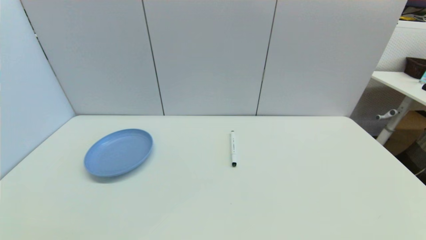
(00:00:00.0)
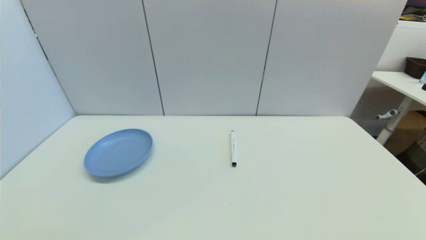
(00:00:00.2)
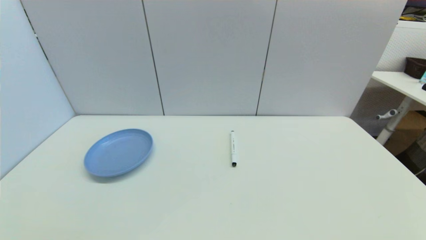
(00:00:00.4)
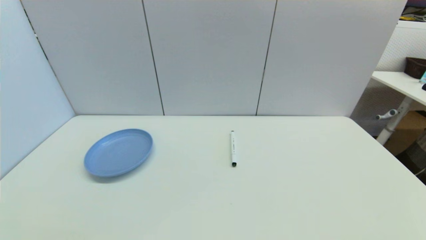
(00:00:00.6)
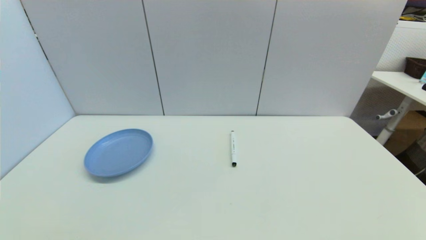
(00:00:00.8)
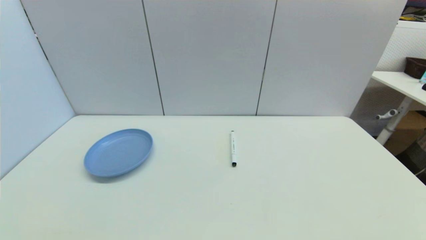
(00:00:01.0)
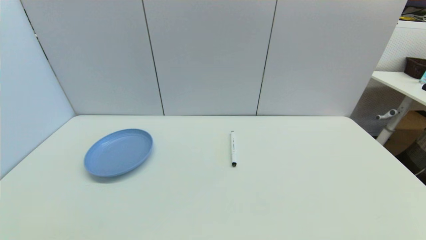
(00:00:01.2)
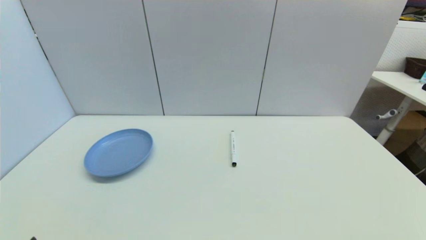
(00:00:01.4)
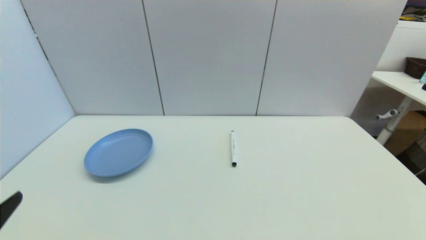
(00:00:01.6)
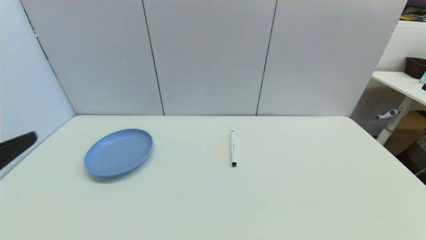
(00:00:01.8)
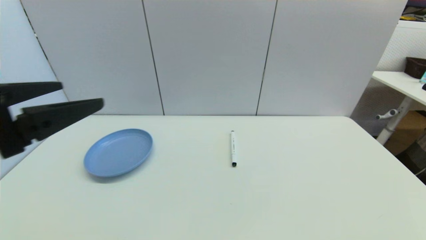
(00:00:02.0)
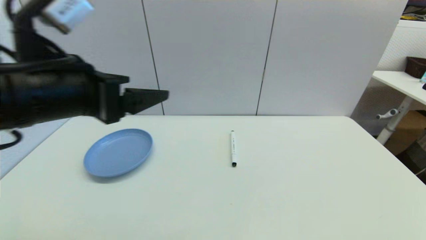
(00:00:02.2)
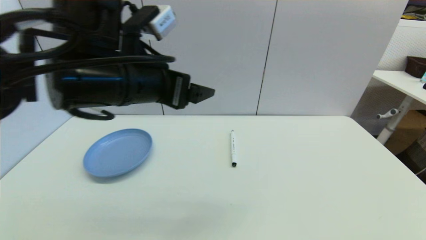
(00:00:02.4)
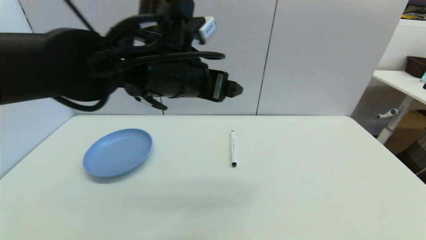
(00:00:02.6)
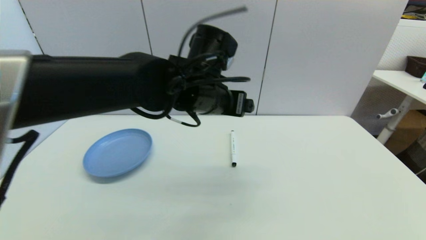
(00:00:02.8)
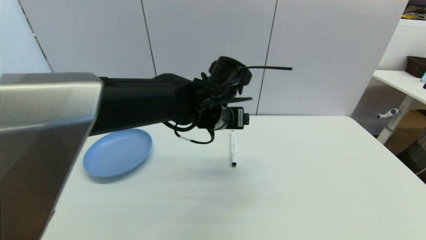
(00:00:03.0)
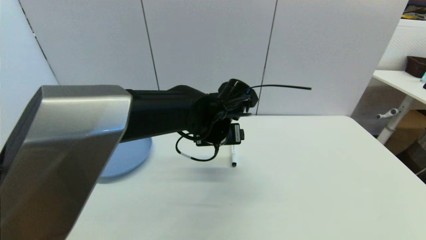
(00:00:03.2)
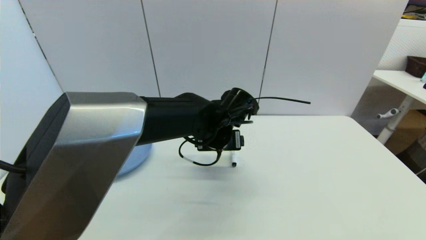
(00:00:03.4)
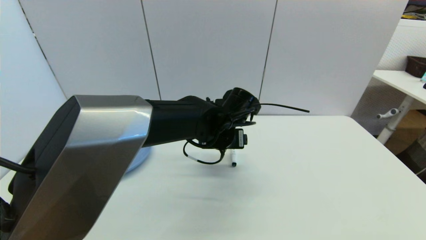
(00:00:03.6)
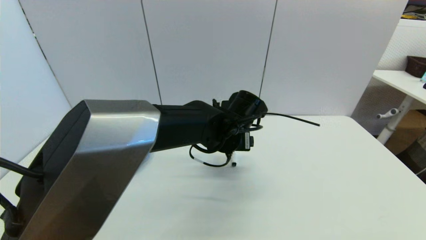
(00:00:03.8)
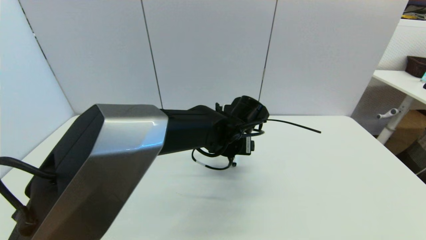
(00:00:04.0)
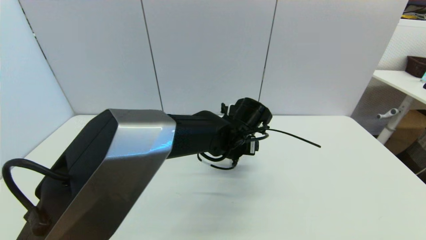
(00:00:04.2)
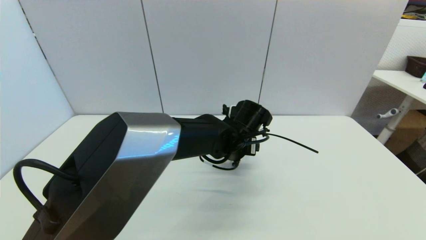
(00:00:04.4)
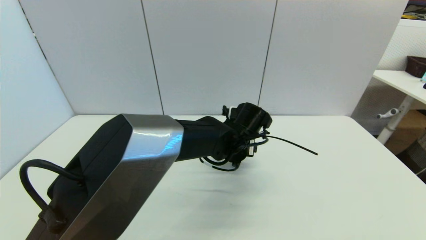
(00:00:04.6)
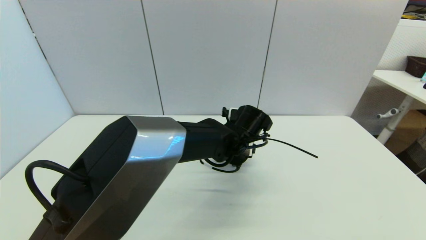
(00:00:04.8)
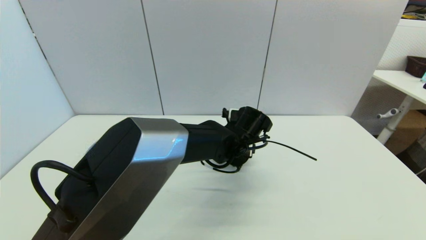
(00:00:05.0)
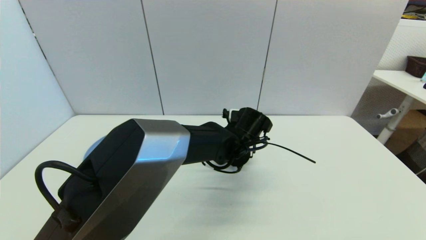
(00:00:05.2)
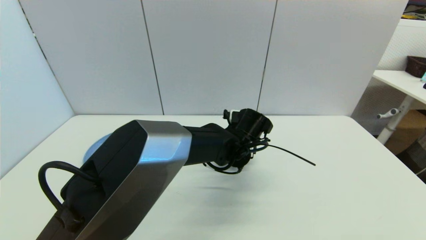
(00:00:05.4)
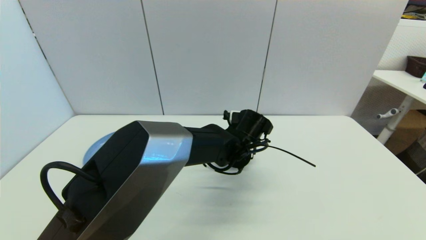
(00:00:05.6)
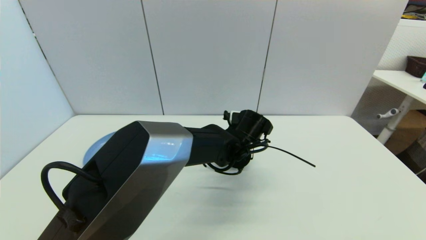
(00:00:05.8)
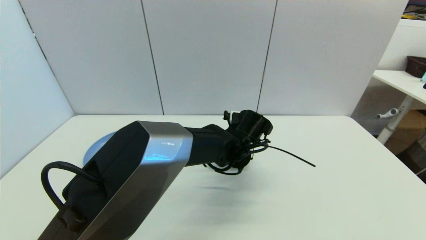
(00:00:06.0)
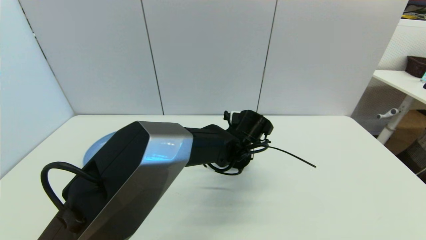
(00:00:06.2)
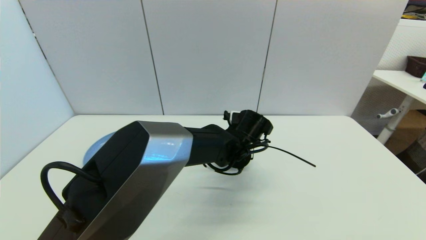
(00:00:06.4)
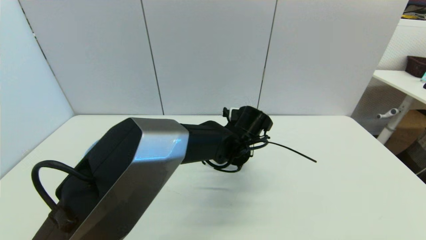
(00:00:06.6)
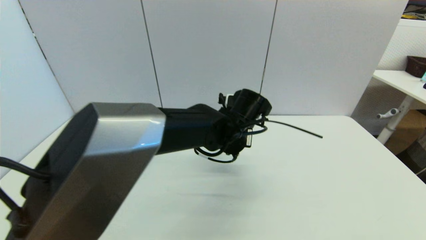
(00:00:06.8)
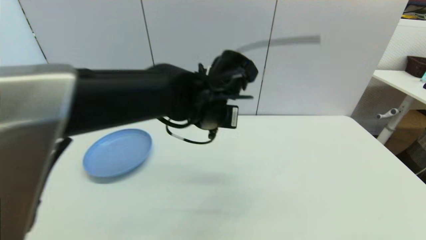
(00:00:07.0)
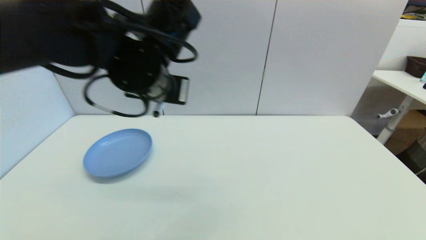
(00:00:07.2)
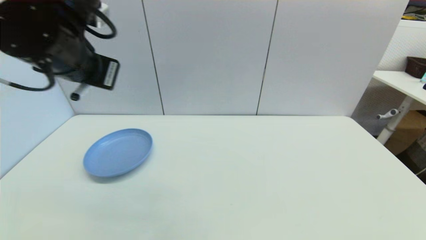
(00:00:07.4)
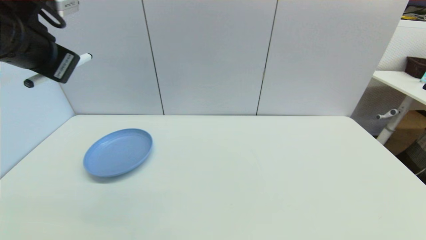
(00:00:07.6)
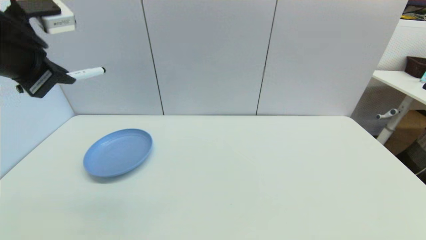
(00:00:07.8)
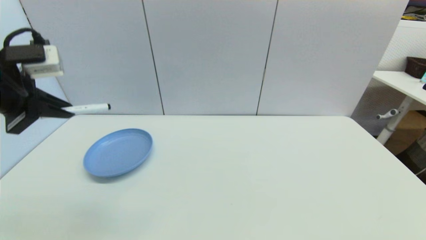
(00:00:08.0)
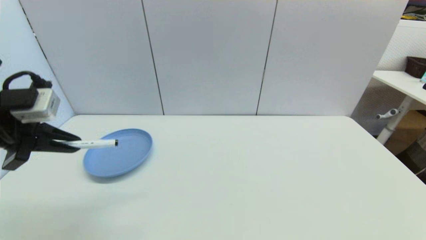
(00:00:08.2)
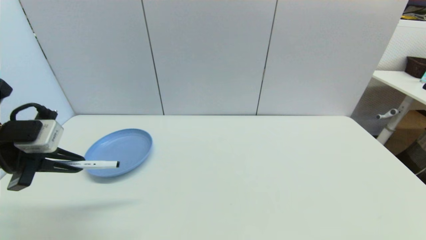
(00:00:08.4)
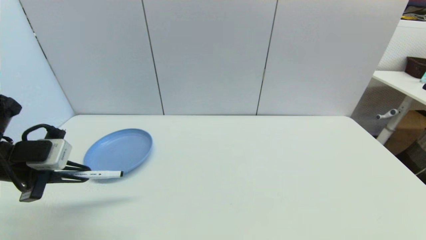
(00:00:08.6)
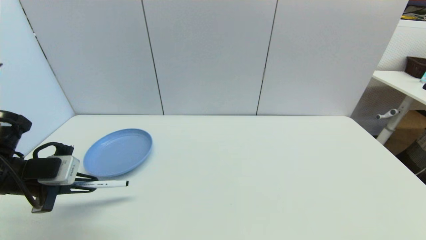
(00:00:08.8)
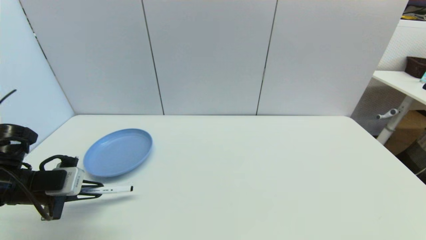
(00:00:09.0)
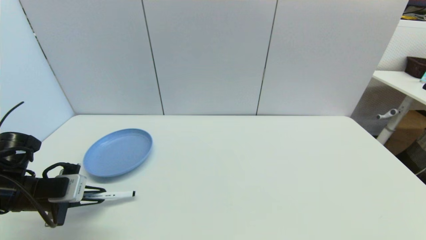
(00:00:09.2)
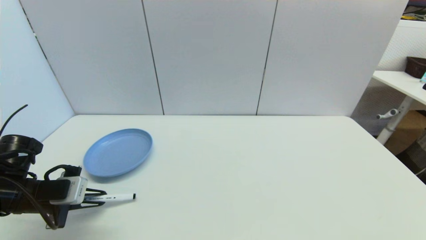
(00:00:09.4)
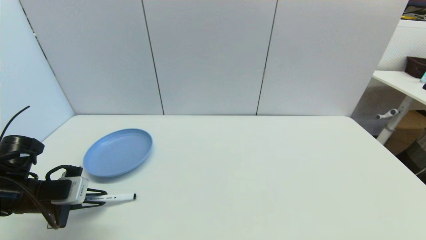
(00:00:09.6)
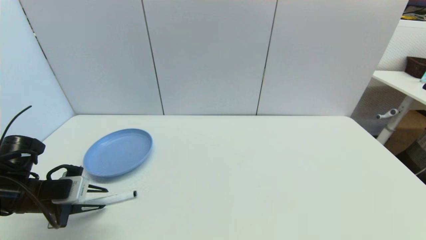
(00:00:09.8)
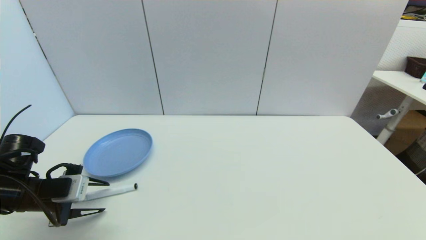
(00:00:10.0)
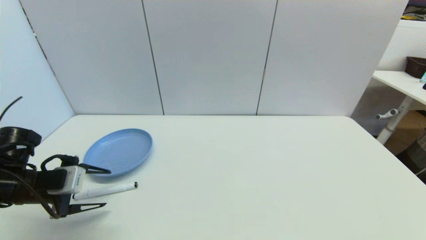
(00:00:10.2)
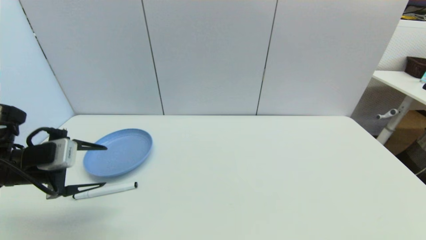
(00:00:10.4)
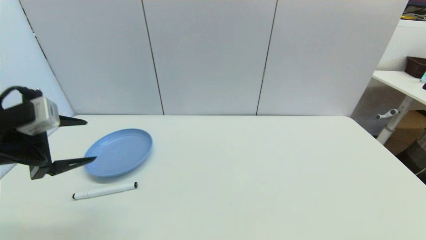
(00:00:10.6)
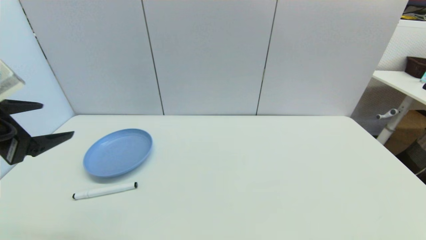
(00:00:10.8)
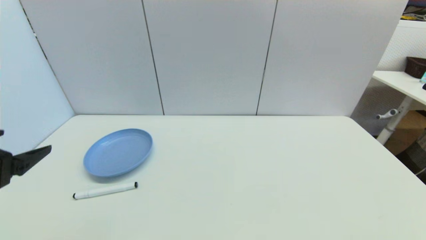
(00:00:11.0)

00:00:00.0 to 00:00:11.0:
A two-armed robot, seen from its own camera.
Task of the whole recording: put the black marker in the designated position.
Step, 00:00:01.4 to 00:00:06.2: Grasp the Marker pen with left gripper.
Step, 00:00:06.4 to 00:00:09.8: Place the Marker pen on the table with left gripper.
00:00:01.6 to 00:00:03.2: The left gripper heads to the right and forward, covering some 40 cm.
00:00:03.2 to 00:00:04.8: The left gripper moves downward, roughly 5 cm.
00:00:04.8 to 00:00:06.2: The left gripper closes its fingers.
00:00:06.2 to 00:00:07.8: The left gripper travels to the left and upward by approximately 40 cm.
00:00:07.8 to 00:00:09.4: The left gripper goes about 25 cm downward.
00:00:09.4 to 00:00:11.0: The left gripper goes approximately 15 cm upward and backward, and opens up.

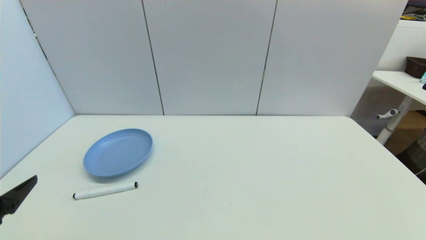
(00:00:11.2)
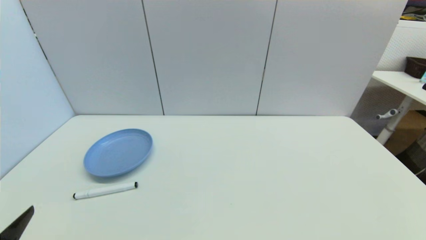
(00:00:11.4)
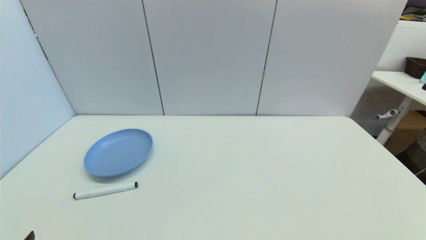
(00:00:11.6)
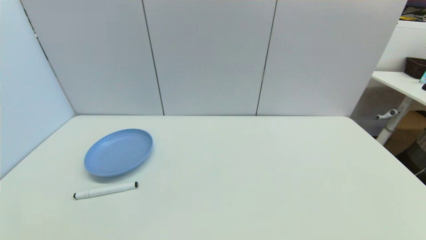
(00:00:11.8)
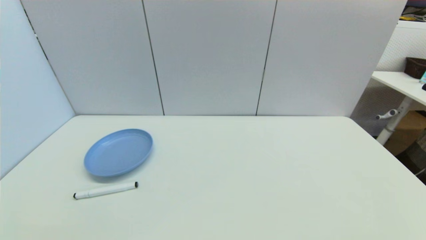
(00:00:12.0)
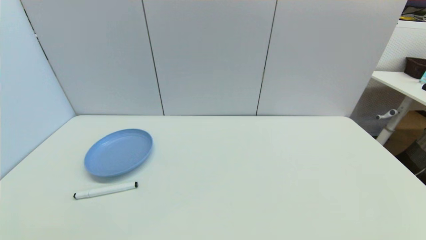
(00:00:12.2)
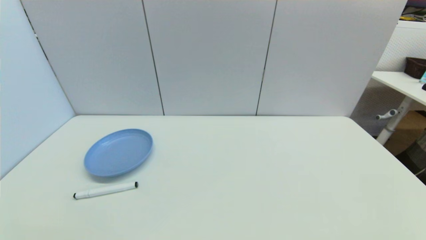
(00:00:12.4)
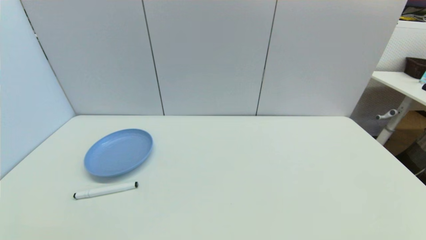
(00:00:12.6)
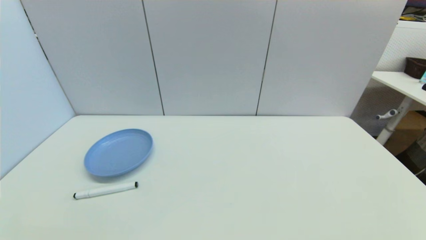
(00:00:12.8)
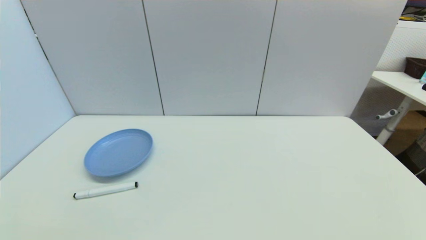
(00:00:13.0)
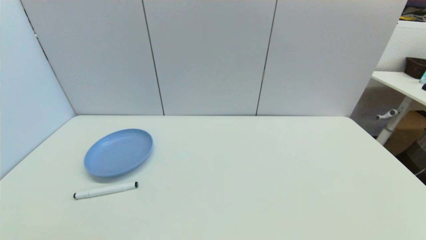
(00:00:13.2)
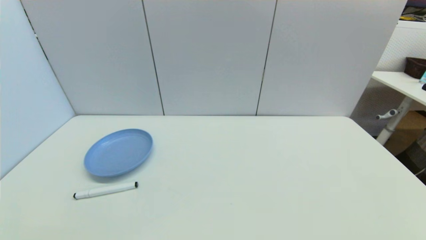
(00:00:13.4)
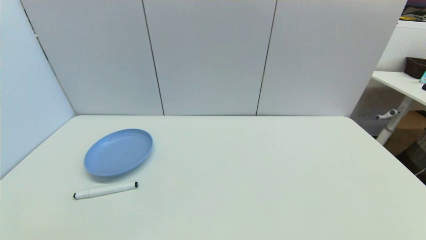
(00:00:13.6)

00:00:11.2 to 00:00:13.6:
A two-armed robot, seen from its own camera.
Task of the whole recording: put the black marker in the designated position.
00:00:11.2 to 00:00:12.4: The left gripper shifts roughly 15 cm downward and backward.
00:00:12.4 to 00:00:13.6: Both grippers stay about where they are.
